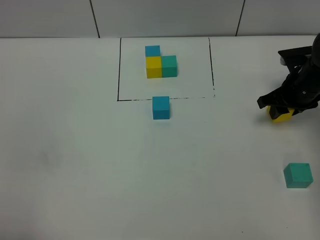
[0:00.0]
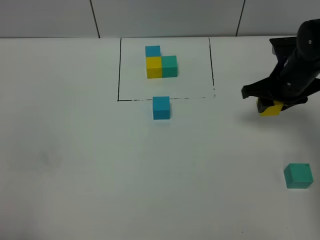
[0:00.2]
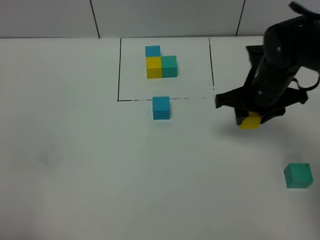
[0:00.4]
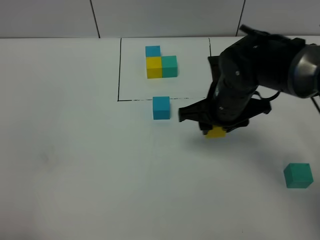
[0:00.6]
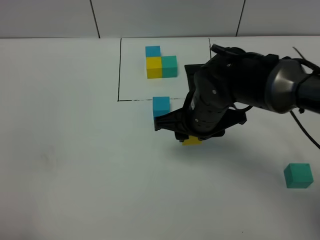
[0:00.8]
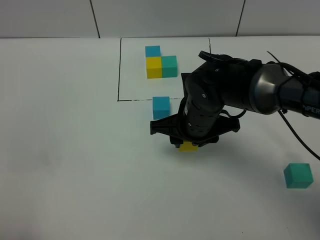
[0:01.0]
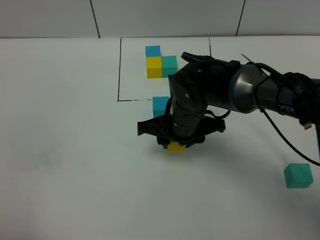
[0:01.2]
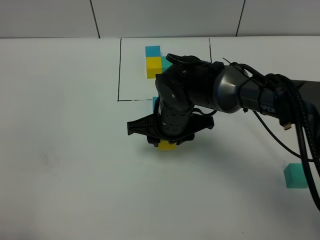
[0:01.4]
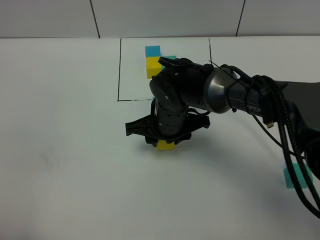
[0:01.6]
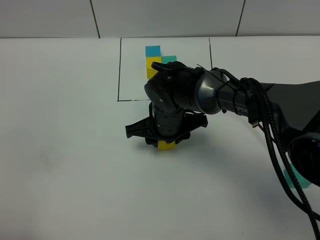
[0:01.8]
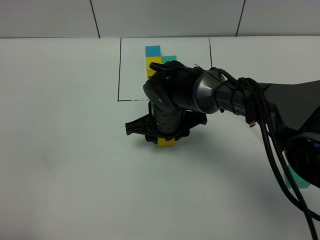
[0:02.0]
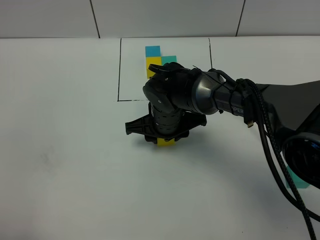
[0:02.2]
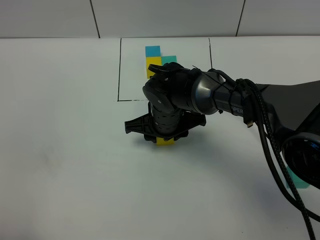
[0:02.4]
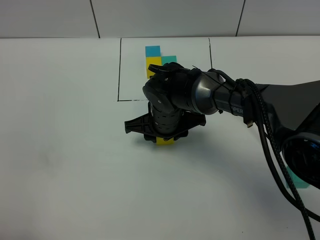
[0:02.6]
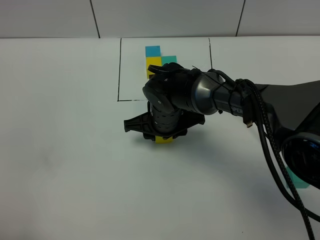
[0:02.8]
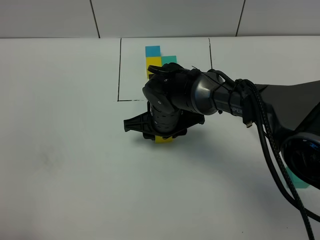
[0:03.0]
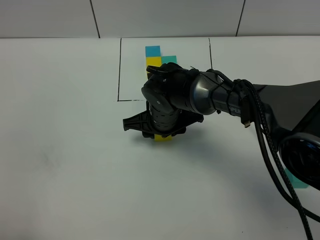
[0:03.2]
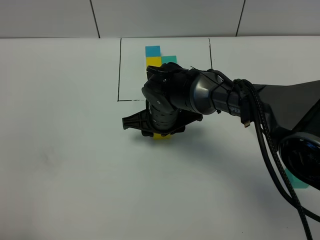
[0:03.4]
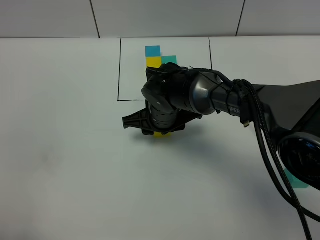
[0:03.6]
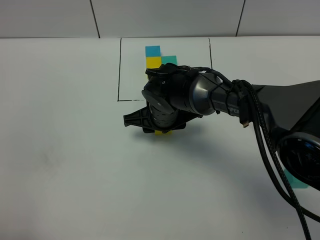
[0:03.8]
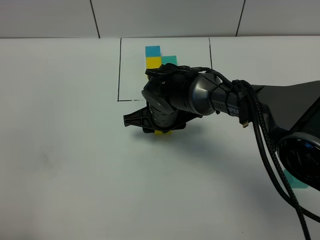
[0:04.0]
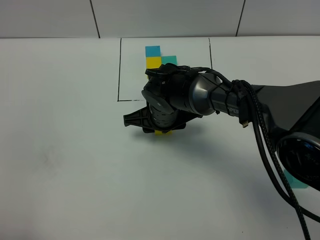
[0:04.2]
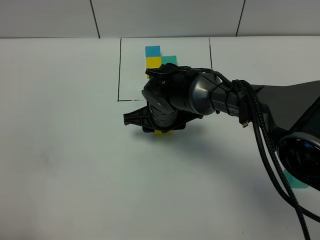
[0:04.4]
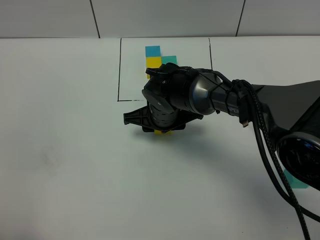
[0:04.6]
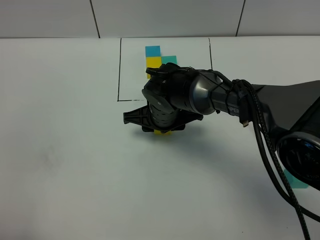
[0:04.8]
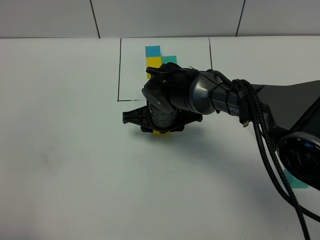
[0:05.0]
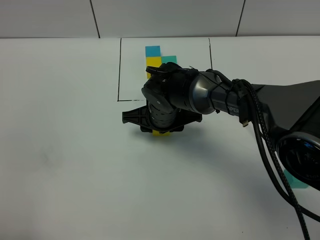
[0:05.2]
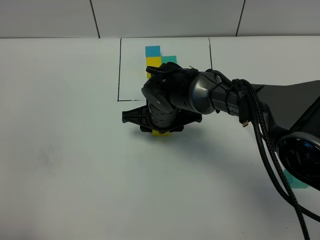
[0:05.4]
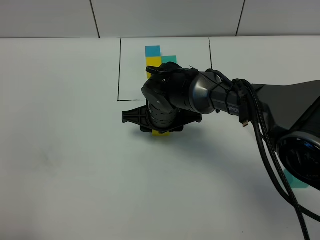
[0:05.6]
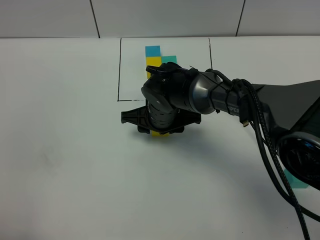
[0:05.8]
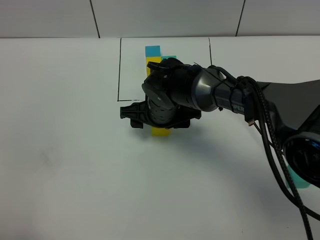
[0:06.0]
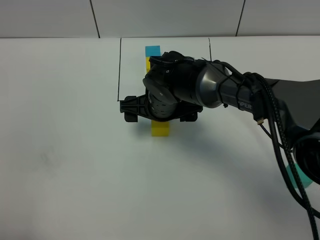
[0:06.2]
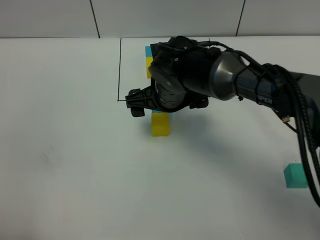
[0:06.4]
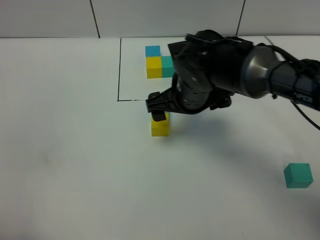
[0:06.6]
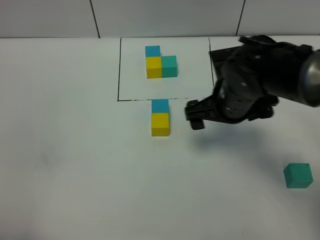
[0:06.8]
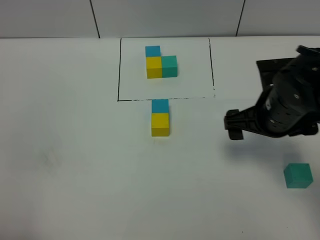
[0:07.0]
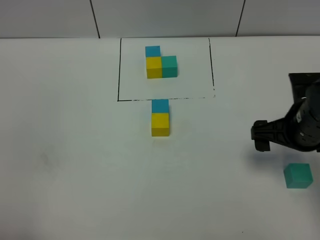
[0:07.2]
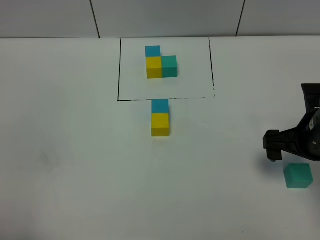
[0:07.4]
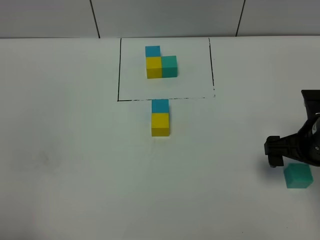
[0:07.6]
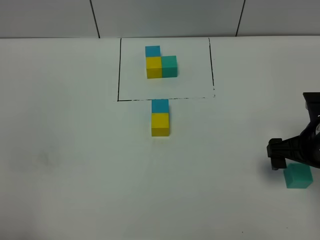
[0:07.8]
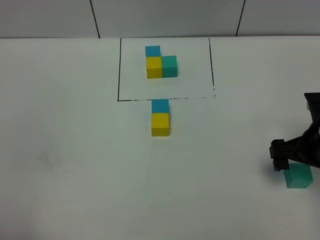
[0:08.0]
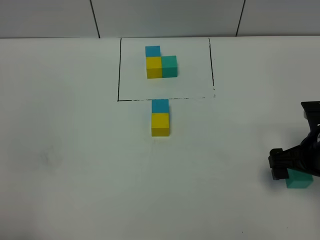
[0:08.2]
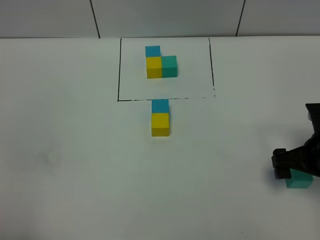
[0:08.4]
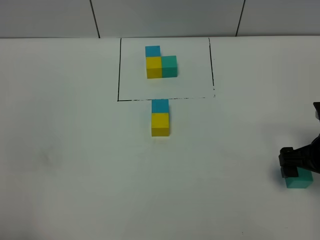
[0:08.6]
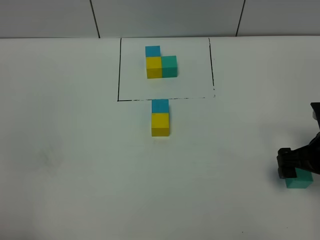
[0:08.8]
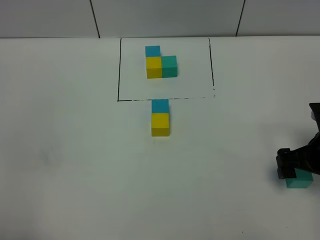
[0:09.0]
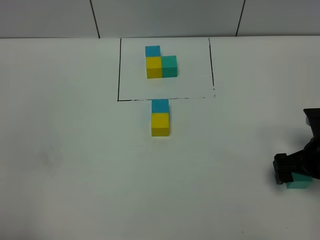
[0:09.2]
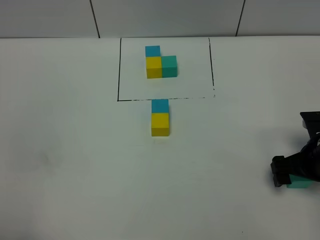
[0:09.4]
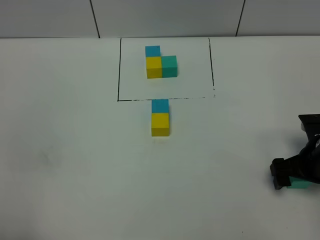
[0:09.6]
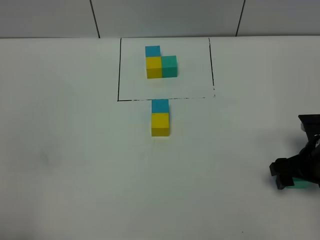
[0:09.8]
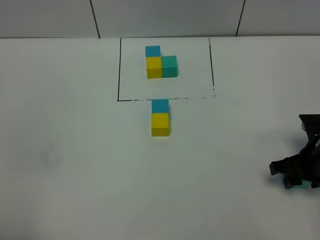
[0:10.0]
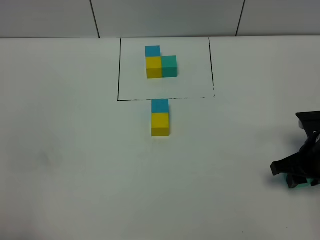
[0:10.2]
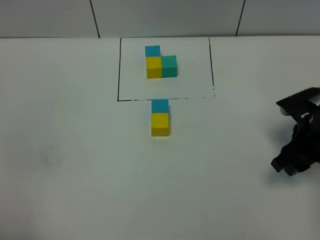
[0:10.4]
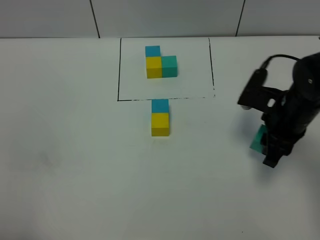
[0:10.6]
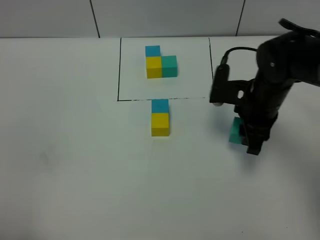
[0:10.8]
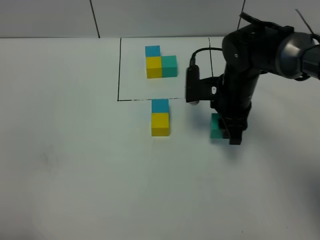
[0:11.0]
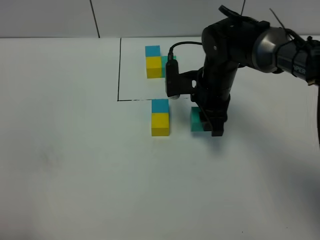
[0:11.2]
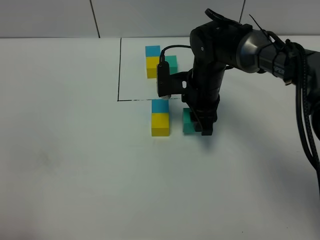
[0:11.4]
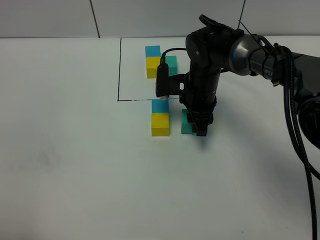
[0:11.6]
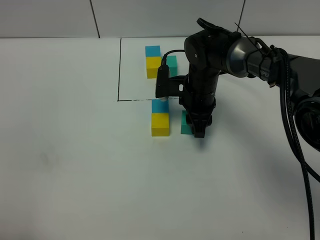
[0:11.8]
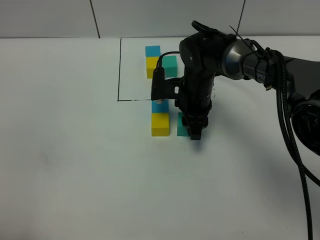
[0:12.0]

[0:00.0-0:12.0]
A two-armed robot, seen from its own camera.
Task of the whole recording: According to the building block template in front, assemble the scattered blocks together.
Step, 0:00.0 to 0:06.0: Put the yellow build block on the behind of the blue build block.
0:00.0 to 0:01.6: The right gripper moves to the left, roughly 25 cm.
0:01.6 to 0:03.0: The grippers make only small movements.
0:03.0 to 0:04.4: Both grippers stay put.
0:04.4 to 0:06.0: The right gripper opens.
0:06.0 to 0:07.6: The right gripper heads to the right and backward, covering approximately 25 cm, and opens up.
0:07.6 to 0:09.0: There are only small adjustments of the grippers.
0:09.0 to 0:10.4: The right gripper closes.
0:10.4 to 0:12.0: The right gripper travels to the left and forward by some 20 cm.

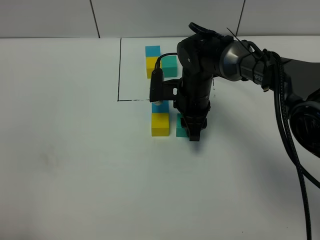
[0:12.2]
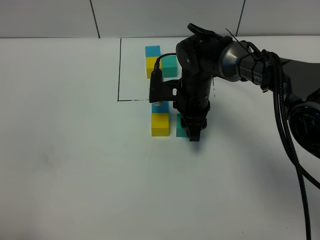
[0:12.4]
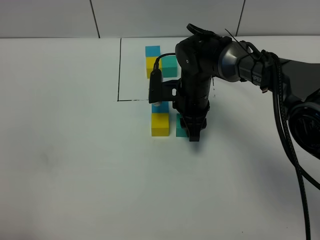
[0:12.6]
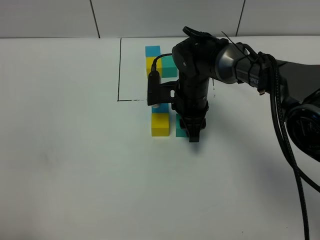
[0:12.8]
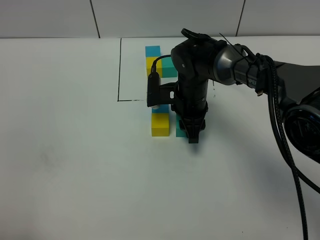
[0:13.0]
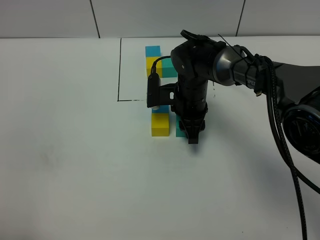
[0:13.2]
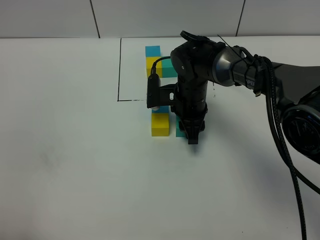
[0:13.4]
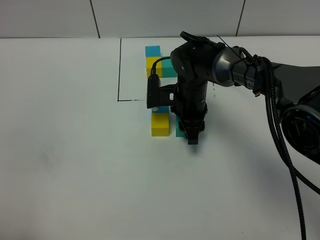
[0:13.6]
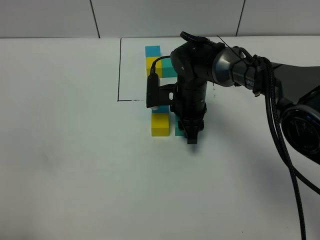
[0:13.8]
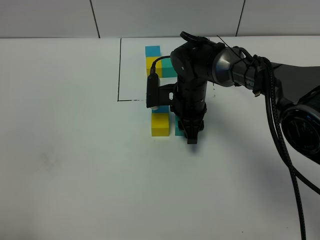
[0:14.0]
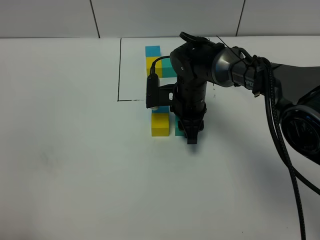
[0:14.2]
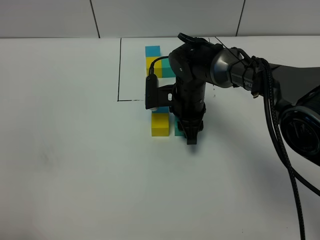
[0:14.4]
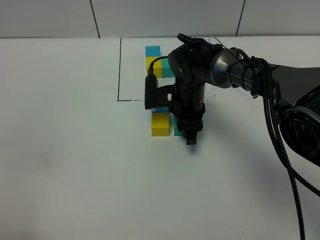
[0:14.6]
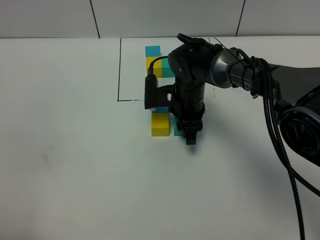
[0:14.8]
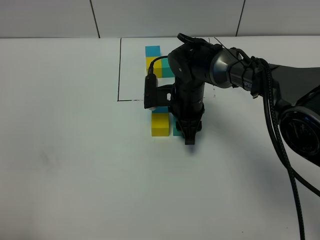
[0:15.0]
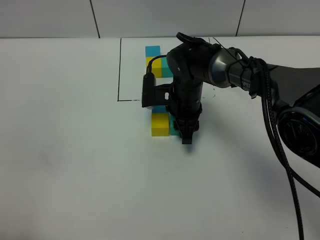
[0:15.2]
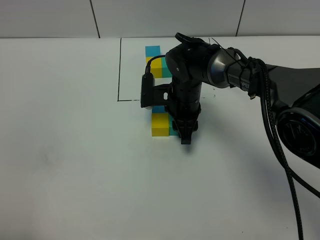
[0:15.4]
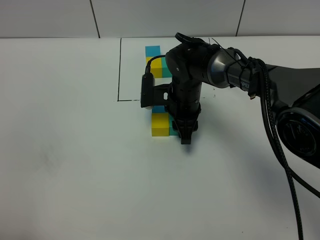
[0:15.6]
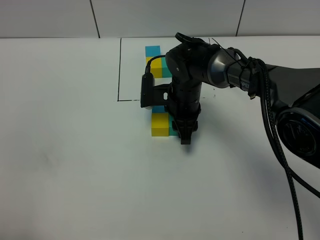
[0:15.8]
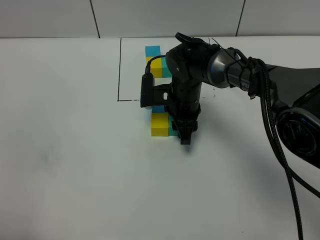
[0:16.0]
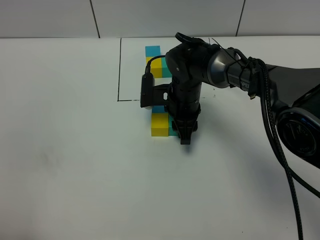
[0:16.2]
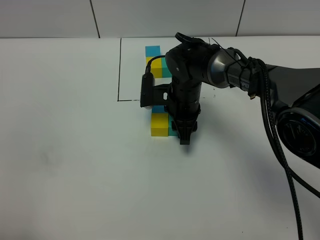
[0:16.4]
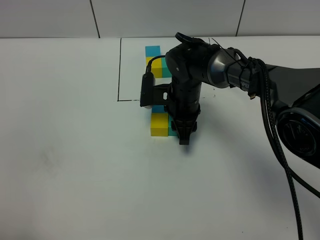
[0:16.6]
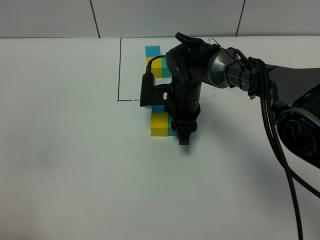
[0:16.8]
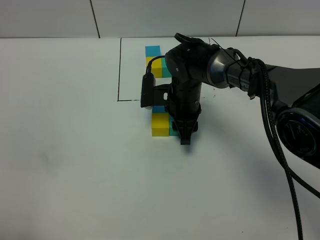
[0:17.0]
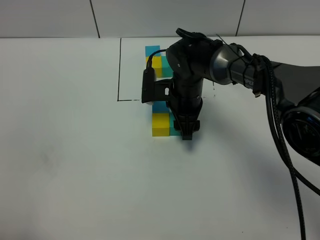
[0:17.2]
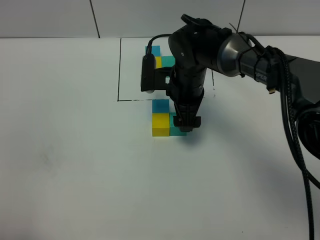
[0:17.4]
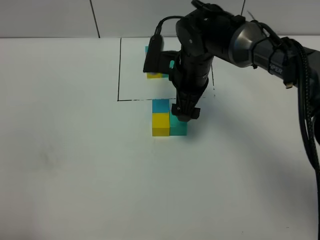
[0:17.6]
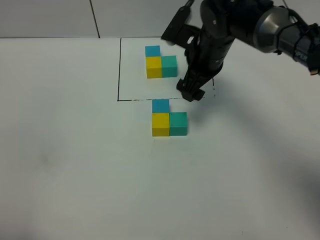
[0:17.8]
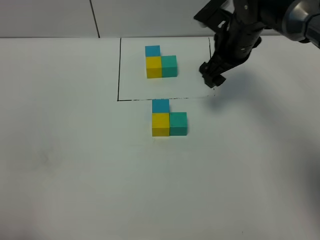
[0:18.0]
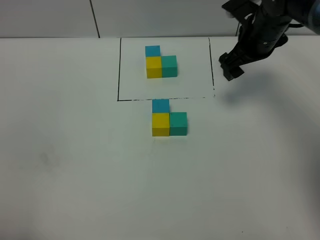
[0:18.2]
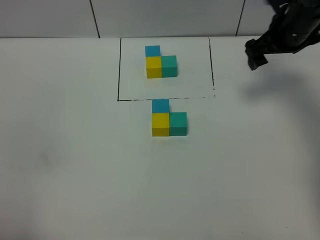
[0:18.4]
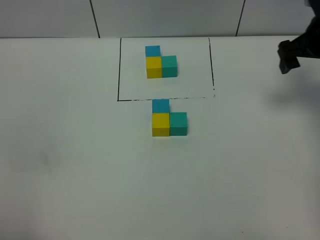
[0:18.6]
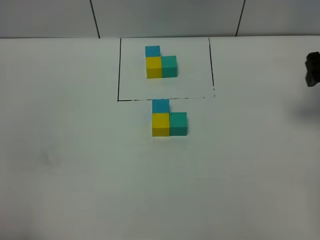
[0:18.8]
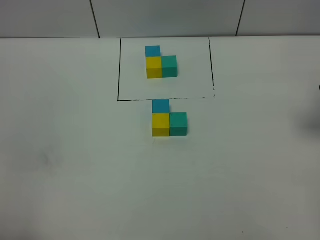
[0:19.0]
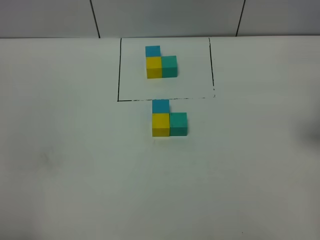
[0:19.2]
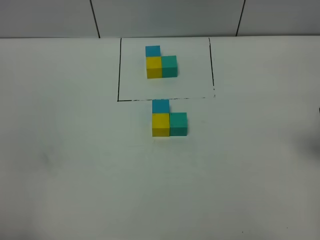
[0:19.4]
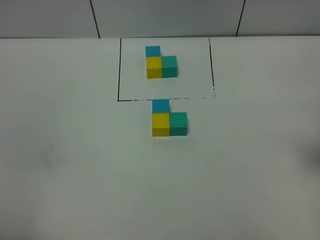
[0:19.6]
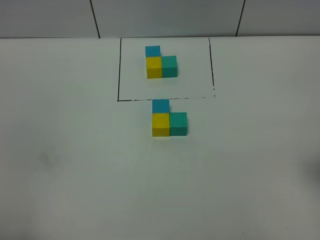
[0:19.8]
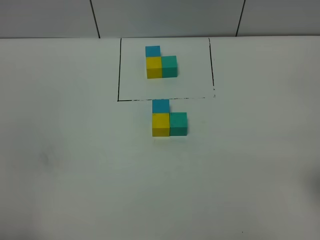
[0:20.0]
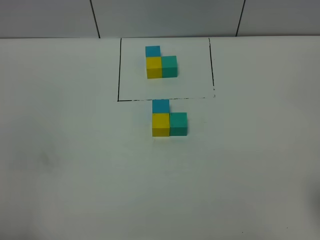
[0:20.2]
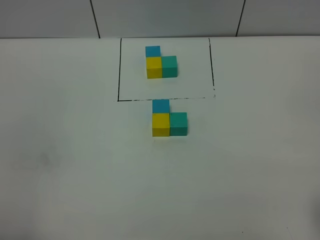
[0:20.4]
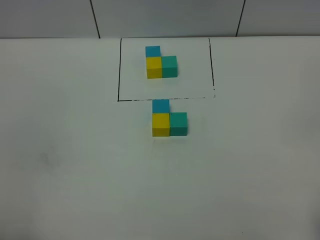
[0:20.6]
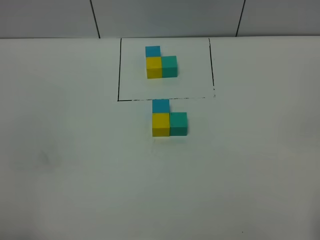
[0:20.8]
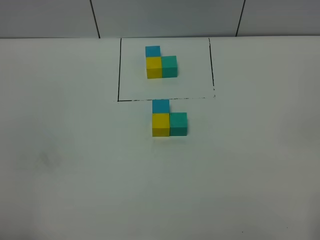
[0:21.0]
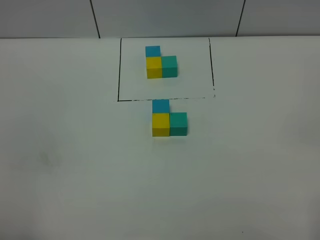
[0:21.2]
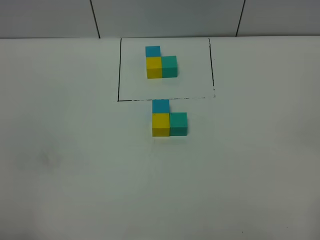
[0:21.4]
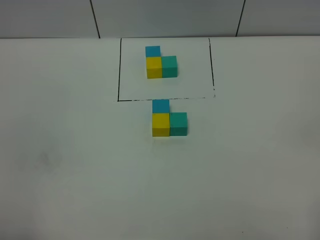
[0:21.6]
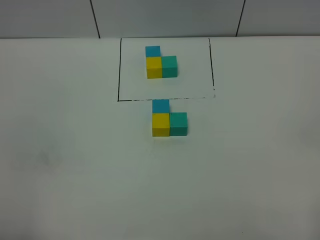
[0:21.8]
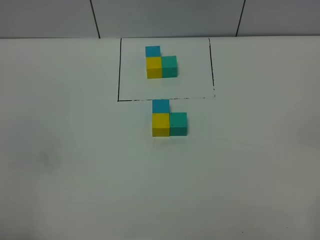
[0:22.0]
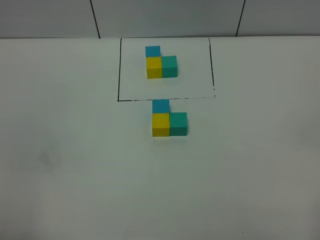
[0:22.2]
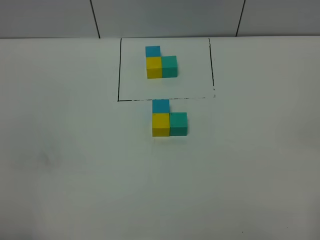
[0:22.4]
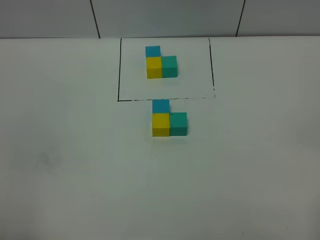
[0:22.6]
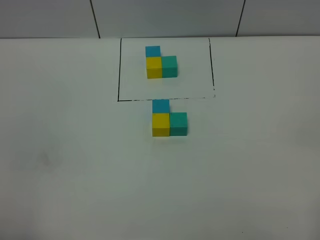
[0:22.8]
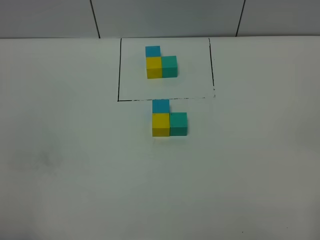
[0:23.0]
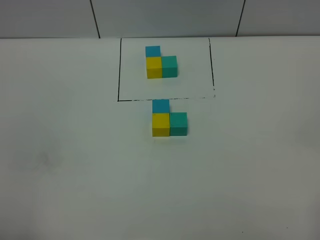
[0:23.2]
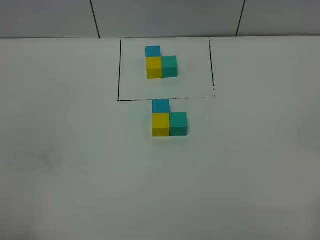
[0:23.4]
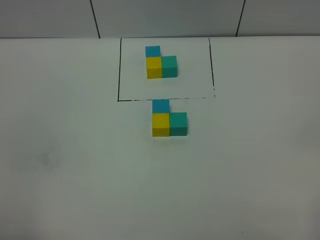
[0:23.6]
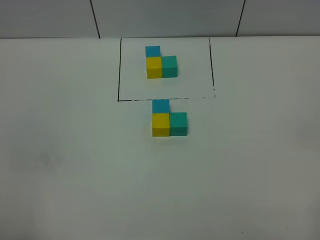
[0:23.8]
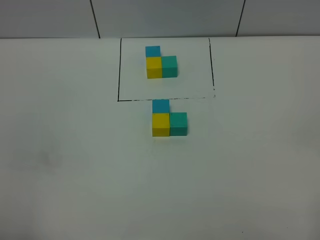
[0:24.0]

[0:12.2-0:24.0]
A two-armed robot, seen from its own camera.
Task of the whole recording: According to the building block template in front, assemble the scattered blocks together.
Step, 0:12.2 to 0:17.4: Put the green build block on the right of the yellow build block.
0:12.2 to 0:13.6: Both grippers stay about where they are.
0:13.6 to 0:16.6: Both grippers stay about where they are.
0:16.6 to 0:18.2: The right gripper heads to the right and upward, covering some 20 cm, and opens.
0:18.2 to 0:19.6: The right gripper heads backward and to the right, covering some 25 cm.
0:22.6 to 0:24.0: Both grippers stay about where they are.
